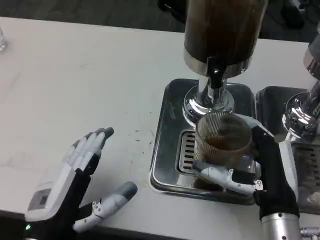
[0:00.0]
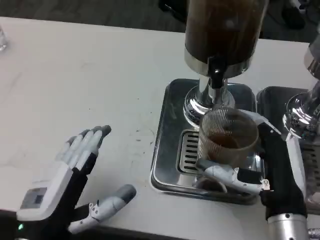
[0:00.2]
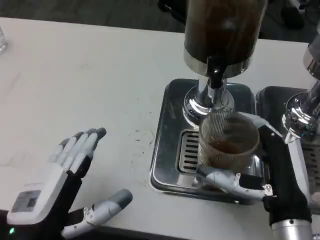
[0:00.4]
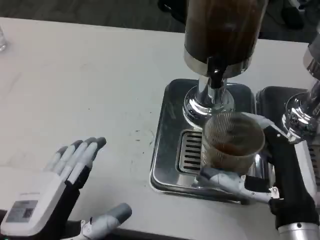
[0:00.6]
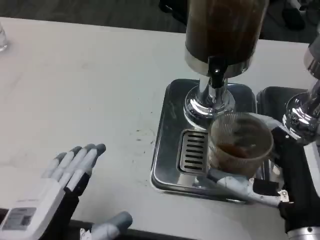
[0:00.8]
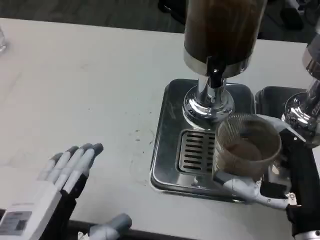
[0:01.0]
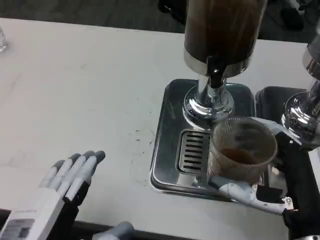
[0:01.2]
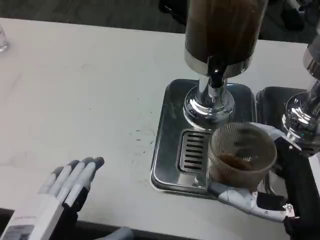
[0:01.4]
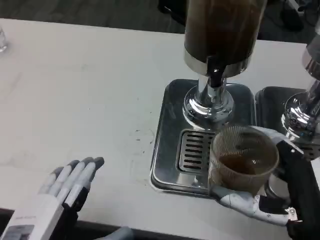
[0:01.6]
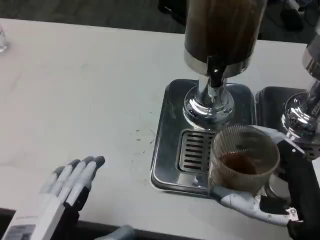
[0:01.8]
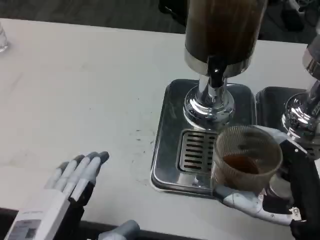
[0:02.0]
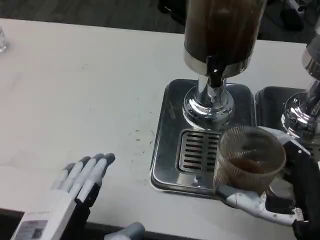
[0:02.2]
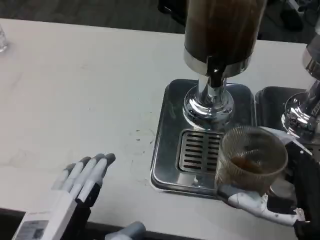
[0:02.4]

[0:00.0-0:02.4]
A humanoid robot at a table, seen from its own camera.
Task of the whole recording: Grasp the cup under the faucet to collect the drink, then remove the cup.
0:00.0 to 0:01.2: The left hand is displaced backward by about 5 cm; the right hand shifts by roughly 5 cm.
0:01.2 to 0:02.4: The hands stay close to where they were, moving slightly.

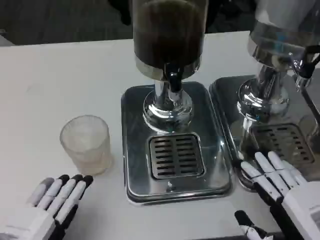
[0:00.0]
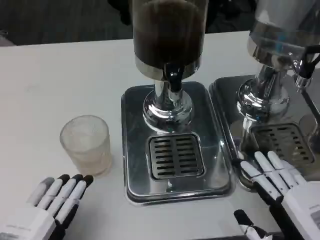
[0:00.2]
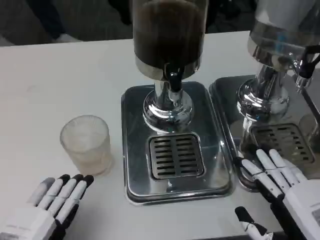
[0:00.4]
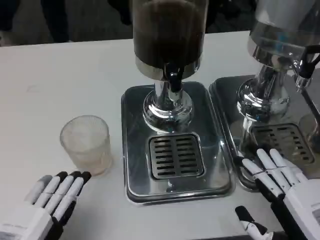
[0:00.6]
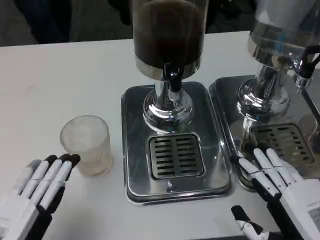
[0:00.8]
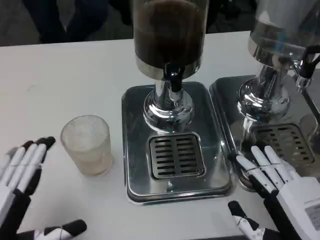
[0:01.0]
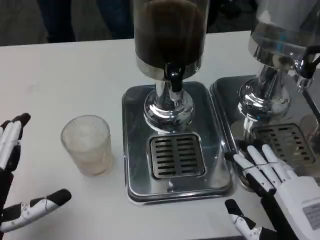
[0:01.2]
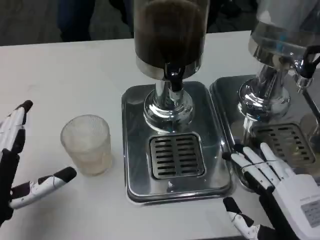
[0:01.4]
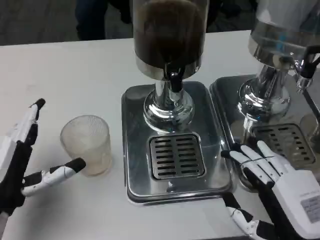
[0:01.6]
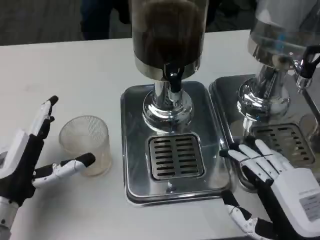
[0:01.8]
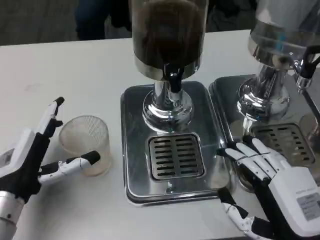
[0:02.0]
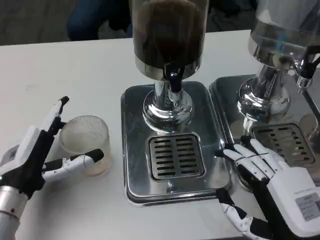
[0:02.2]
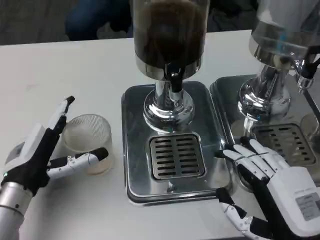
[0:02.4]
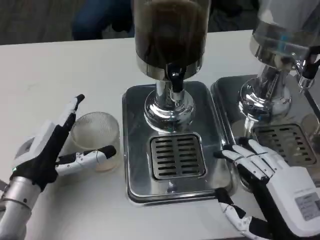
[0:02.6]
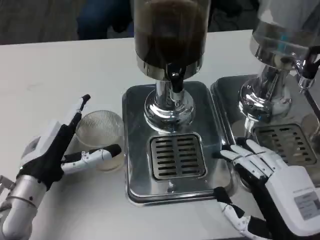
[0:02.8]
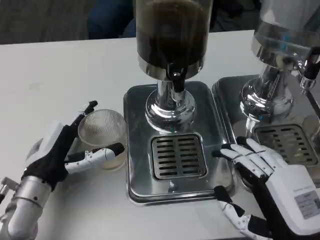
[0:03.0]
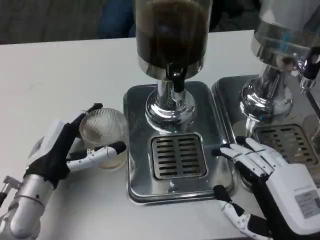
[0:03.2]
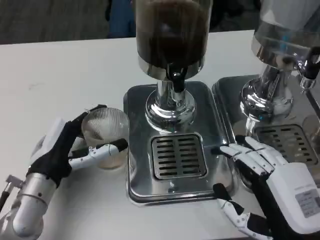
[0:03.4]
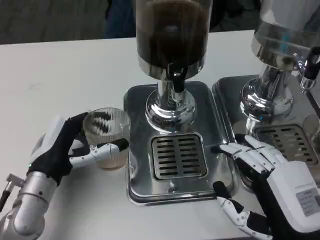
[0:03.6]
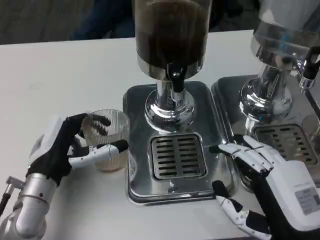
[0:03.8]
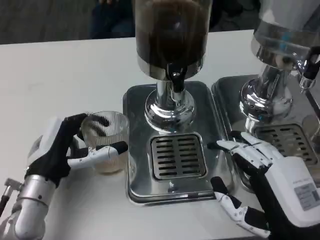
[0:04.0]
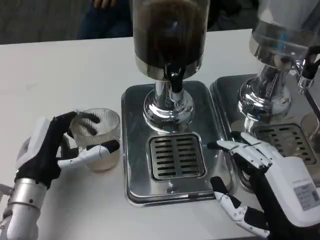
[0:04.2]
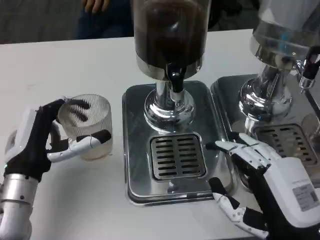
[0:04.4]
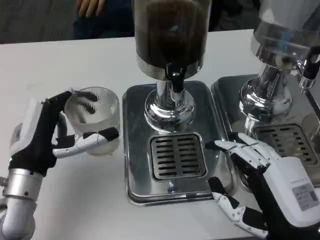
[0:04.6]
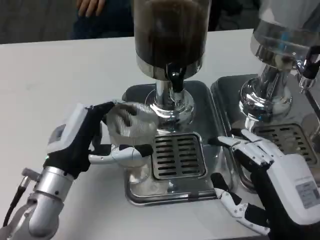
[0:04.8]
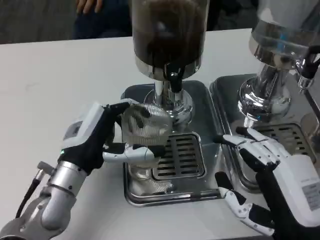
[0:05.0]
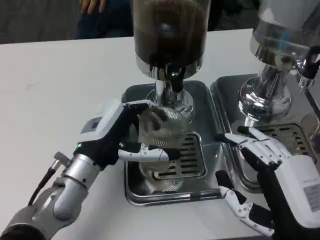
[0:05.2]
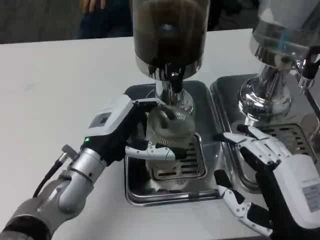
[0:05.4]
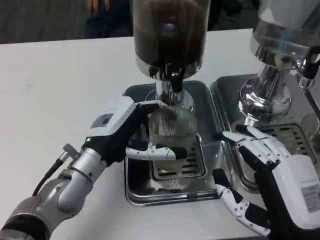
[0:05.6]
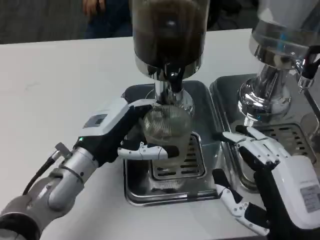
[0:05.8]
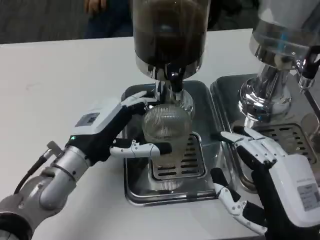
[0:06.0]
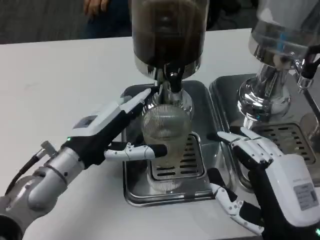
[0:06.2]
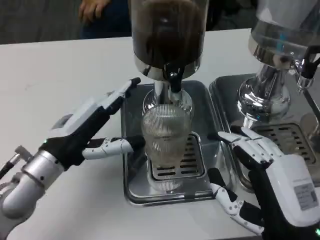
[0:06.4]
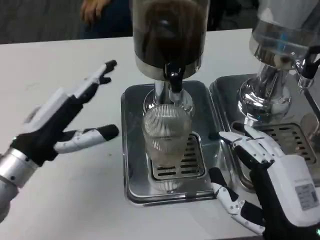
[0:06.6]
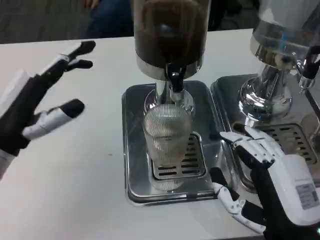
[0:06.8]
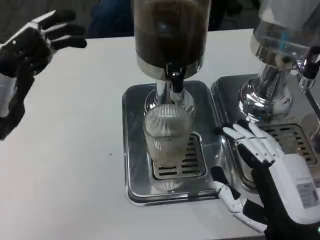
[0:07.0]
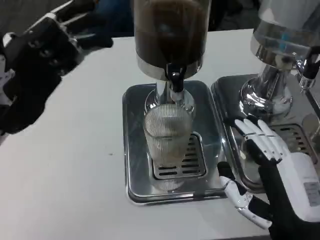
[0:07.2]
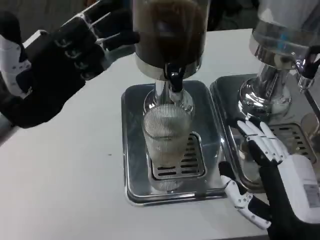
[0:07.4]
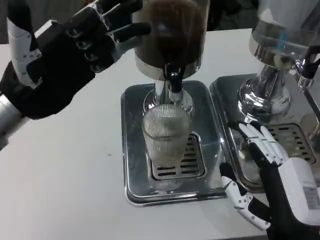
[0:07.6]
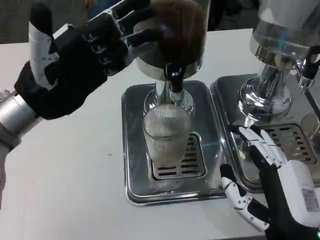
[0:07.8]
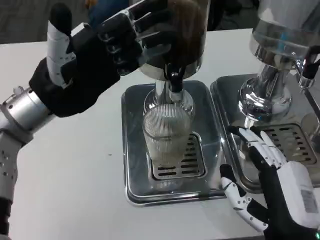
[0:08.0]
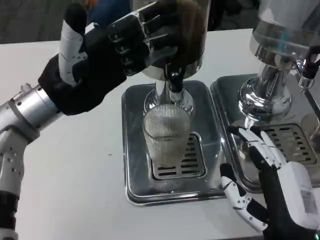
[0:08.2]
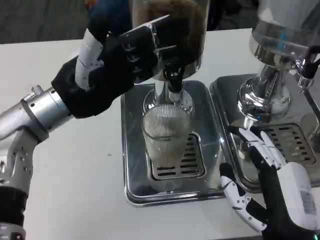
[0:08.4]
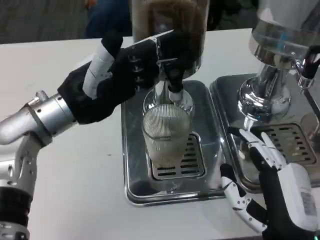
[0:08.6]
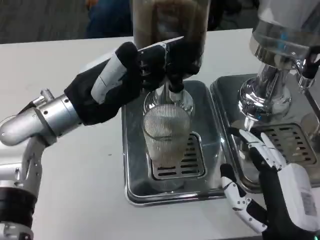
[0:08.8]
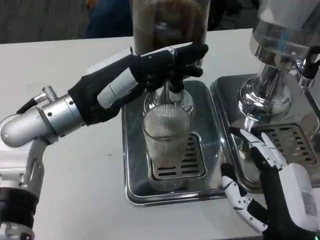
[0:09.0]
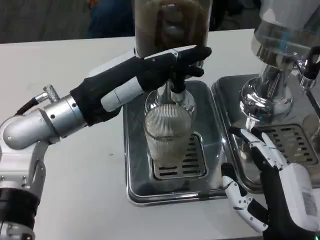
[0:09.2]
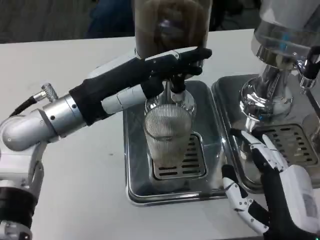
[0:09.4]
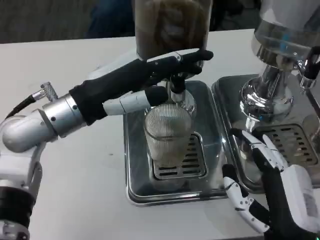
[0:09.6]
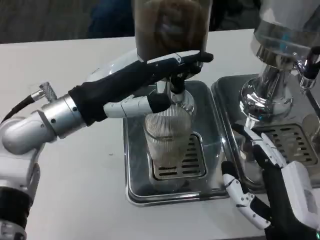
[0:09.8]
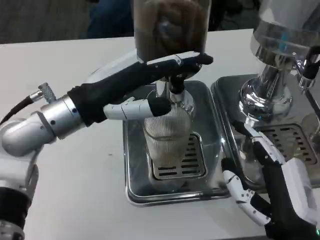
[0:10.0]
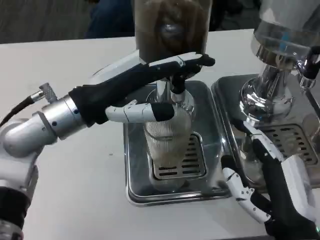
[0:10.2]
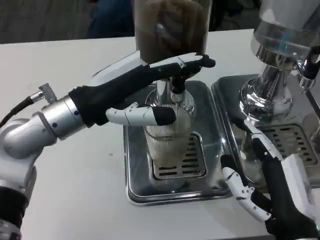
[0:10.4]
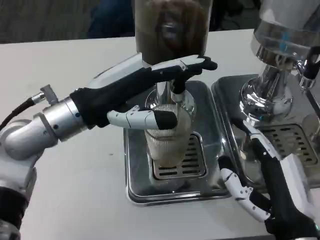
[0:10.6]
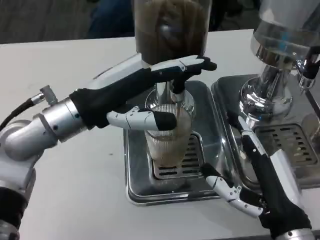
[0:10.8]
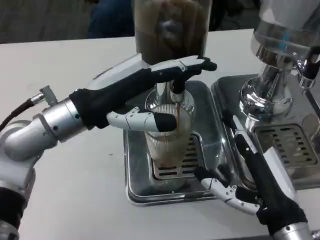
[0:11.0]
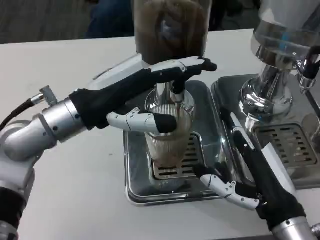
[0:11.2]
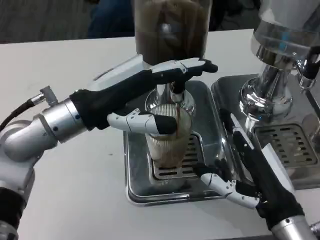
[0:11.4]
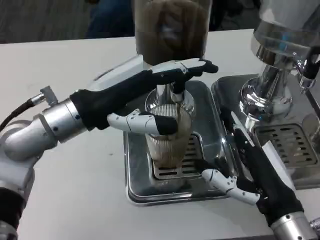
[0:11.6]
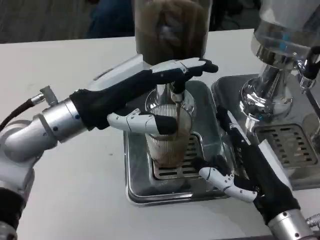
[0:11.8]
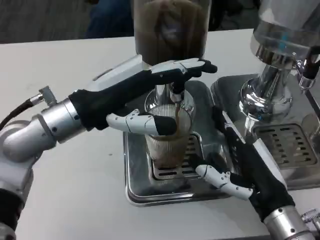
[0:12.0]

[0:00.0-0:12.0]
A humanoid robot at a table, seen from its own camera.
Task of the whole recording: Grasp the cup under the faucet to collect the drink, then remove the cup.
0:00.0 to 0:01.6: The left hand moves forward, approximately 10 cm.
0:01.6 to 0:03.0: The left hand shifts some 5 cm forward.
0:04.4 to 0:06.0: The left hand shifts by some 5 cm.
0:06.0 to 0:07.6: The left hand travels upward and to the left by approximately 15 cm.
0:07.6 to 0:09.0: The left hand goes approximately 5 cm to the right.

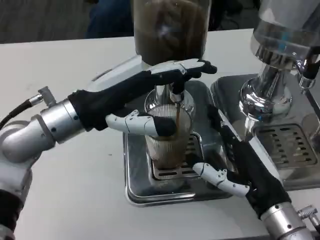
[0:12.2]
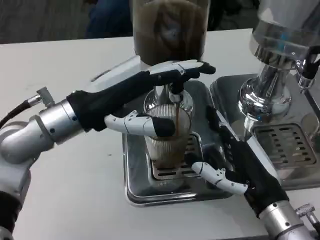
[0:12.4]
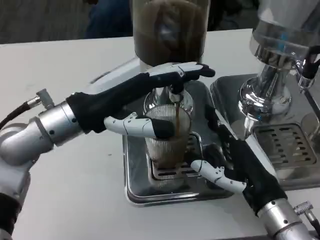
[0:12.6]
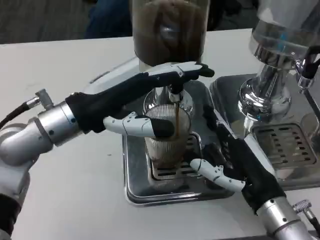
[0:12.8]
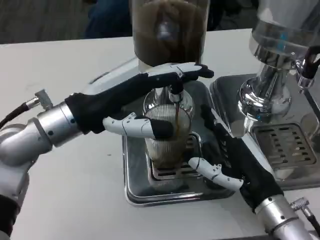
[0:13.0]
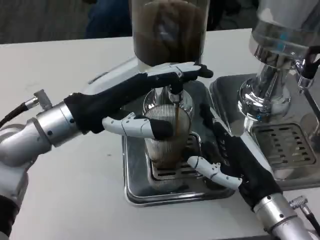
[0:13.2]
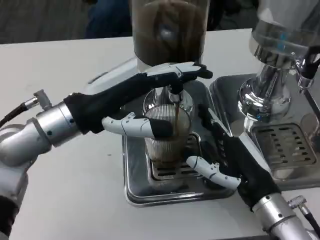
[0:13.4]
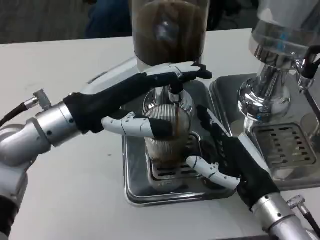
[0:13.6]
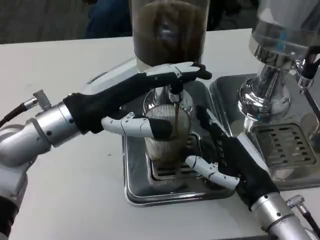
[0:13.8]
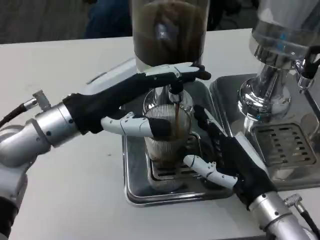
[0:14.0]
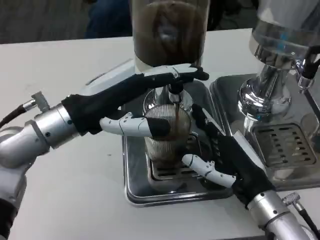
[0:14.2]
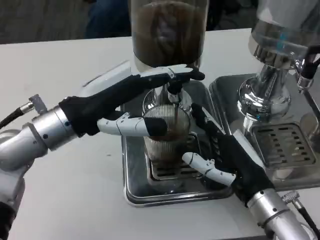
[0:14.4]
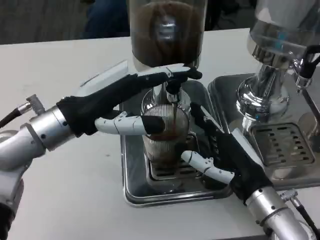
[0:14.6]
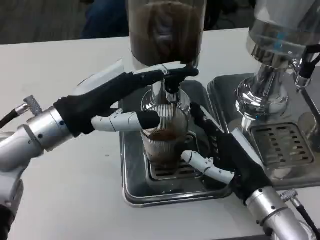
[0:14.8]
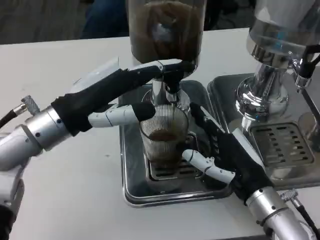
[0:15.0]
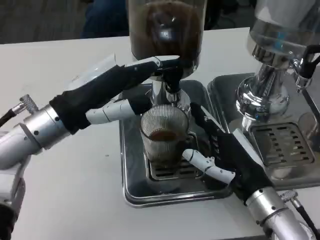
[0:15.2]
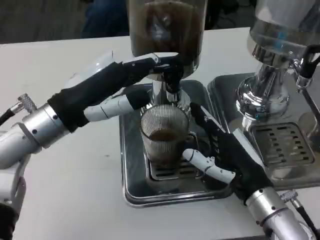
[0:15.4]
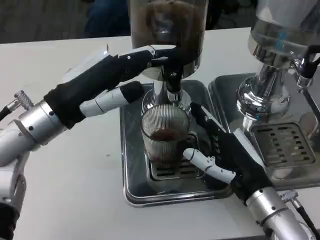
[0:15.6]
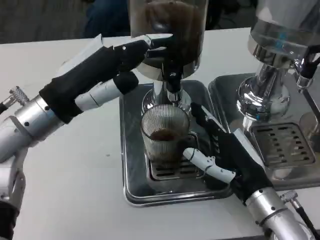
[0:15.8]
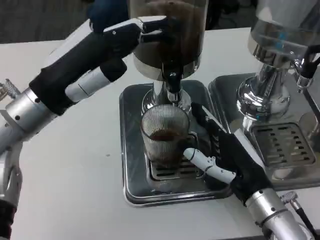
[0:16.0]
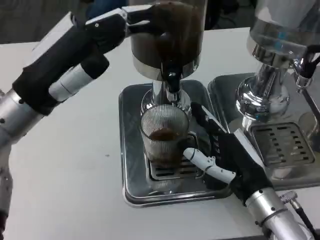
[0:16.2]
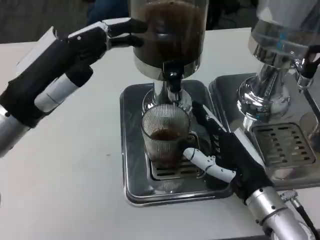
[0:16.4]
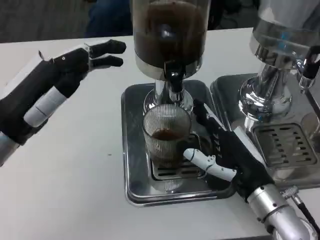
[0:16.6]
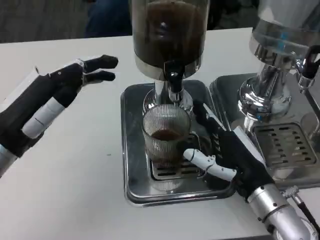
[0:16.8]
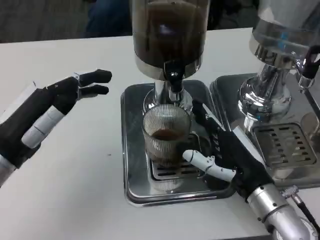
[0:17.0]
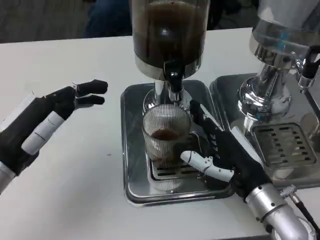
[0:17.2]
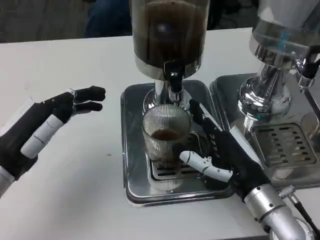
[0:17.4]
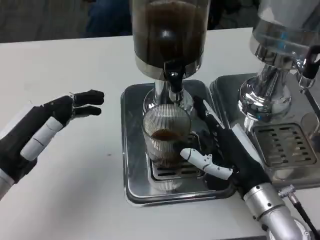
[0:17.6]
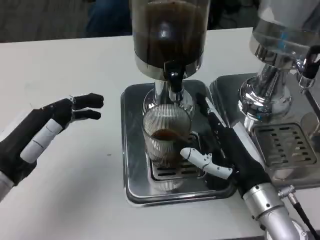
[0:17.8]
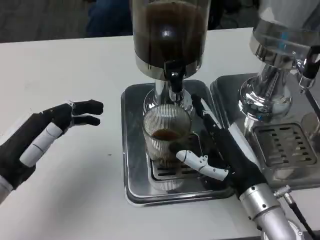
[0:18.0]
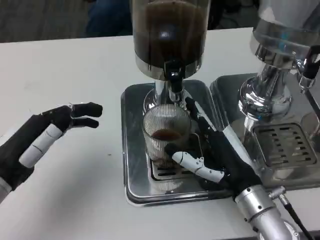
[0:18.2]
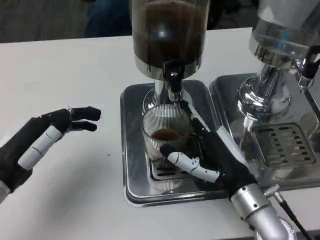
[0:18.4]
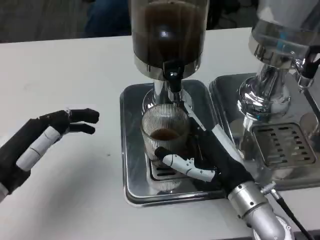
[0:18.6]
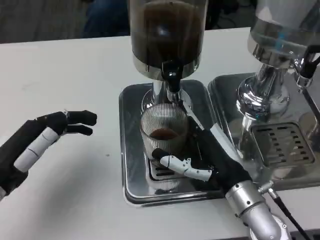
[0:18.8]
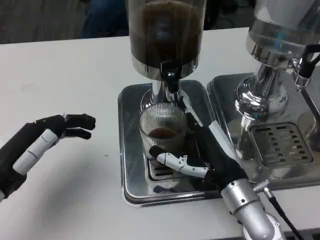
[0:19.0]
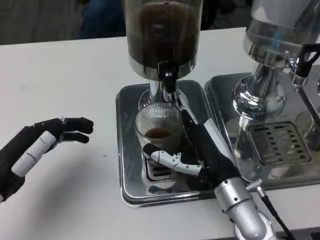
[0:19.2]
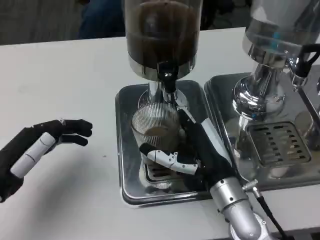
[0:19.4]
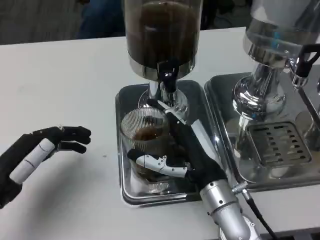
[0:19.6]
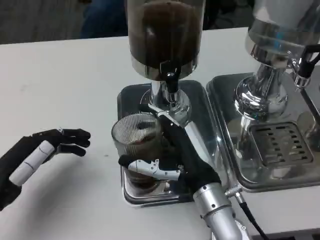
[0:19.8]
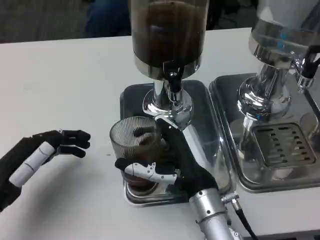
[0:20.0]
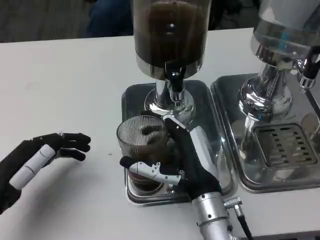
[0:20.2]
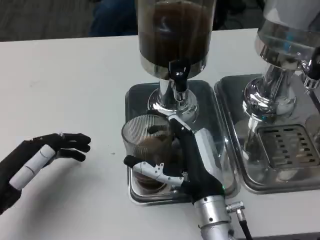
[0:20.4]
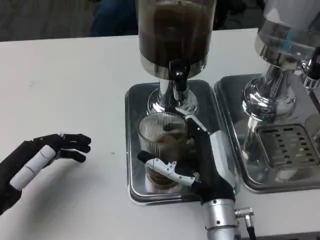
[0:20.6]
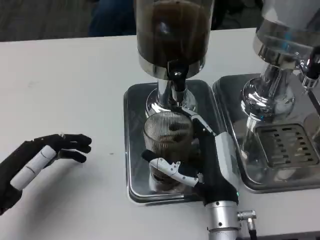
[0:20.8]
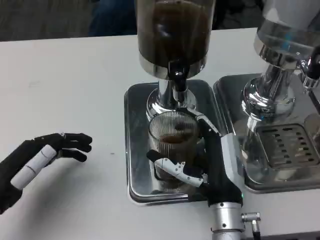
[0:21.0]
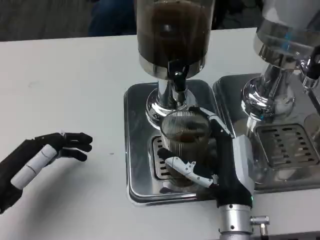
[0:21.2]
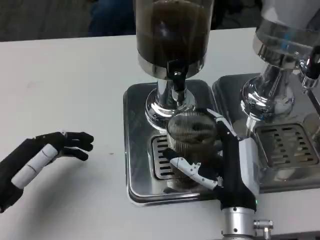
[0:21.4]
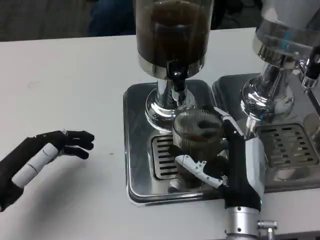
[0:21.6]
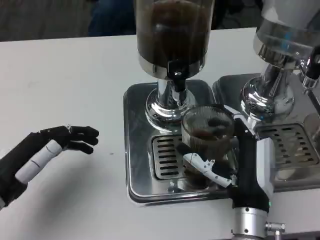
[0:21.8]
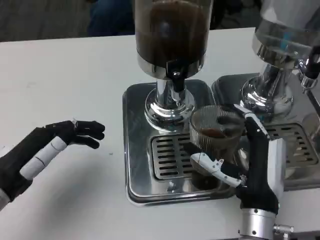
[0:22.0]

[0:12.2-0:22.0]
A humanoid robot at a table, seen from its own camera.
Task of the whole recording: Grasp the cup under the faucet to collect the drink, then remove the cup.
0:12.2 to 0:13.6: There are only small adjustments of the hands.
0:16.4 to 0:17.8: The left hand heads downward, covering roughly 10 cm.
0:19.2 to 0:20.6: The right hand ends up approximately 5 cm from where it was.
